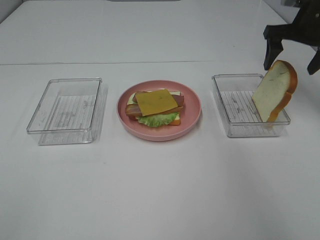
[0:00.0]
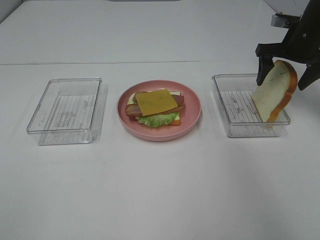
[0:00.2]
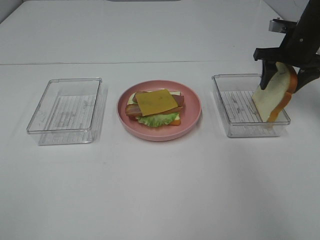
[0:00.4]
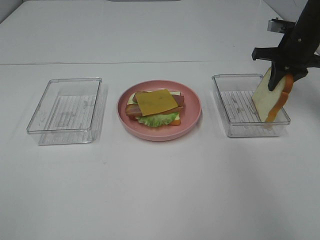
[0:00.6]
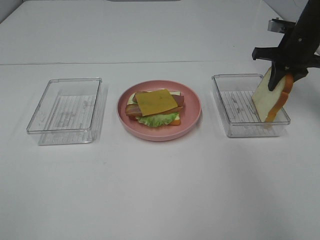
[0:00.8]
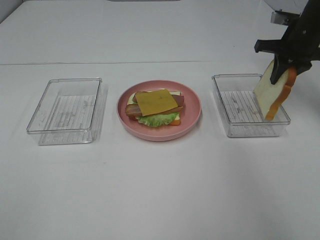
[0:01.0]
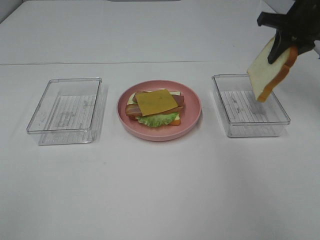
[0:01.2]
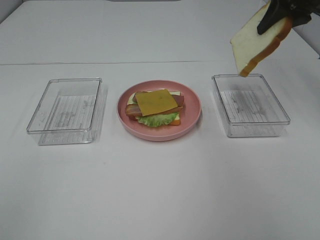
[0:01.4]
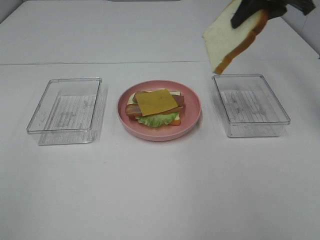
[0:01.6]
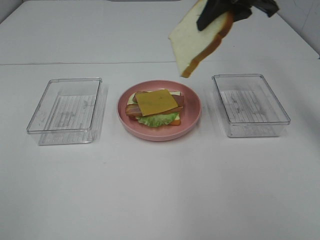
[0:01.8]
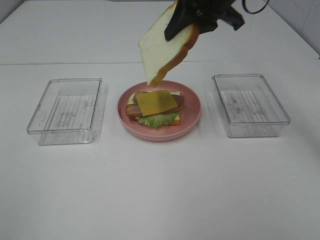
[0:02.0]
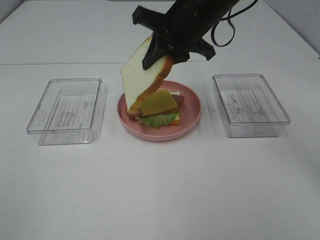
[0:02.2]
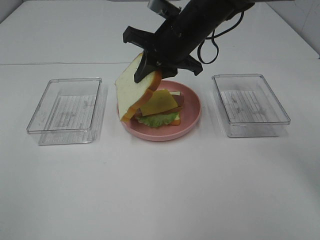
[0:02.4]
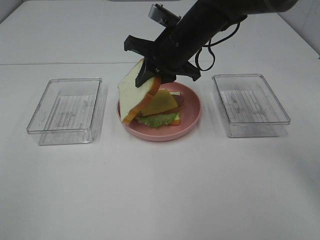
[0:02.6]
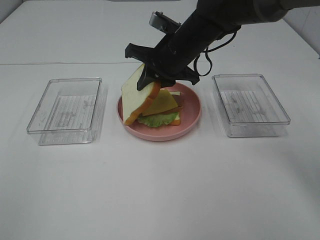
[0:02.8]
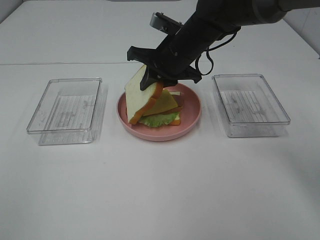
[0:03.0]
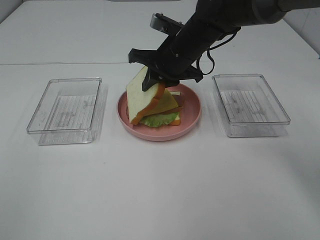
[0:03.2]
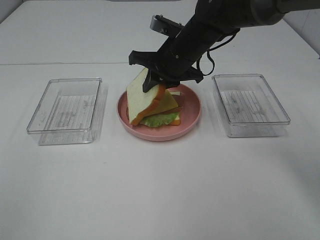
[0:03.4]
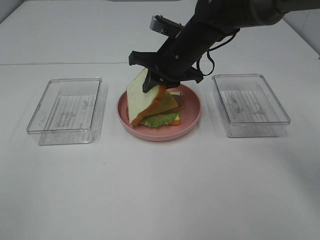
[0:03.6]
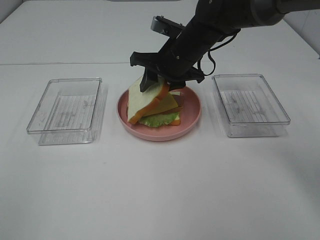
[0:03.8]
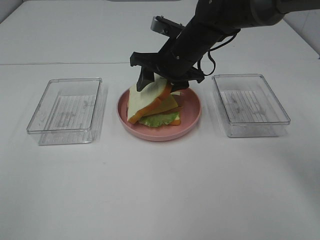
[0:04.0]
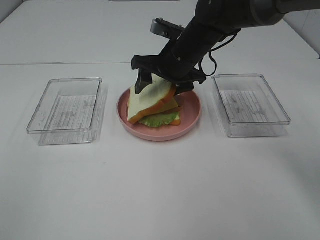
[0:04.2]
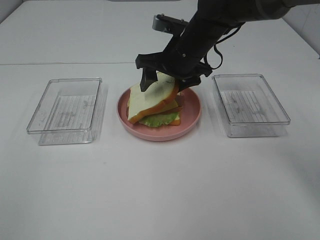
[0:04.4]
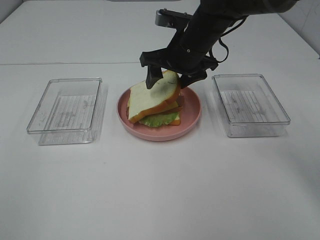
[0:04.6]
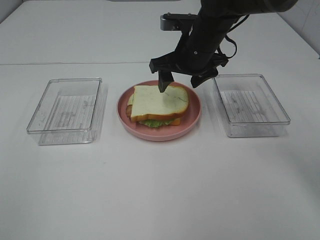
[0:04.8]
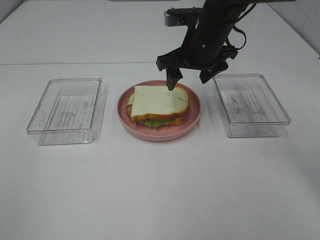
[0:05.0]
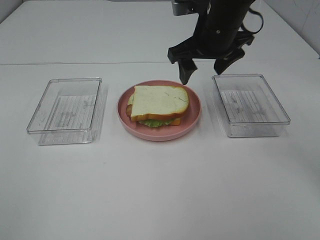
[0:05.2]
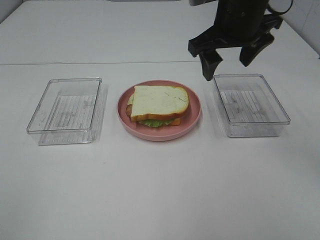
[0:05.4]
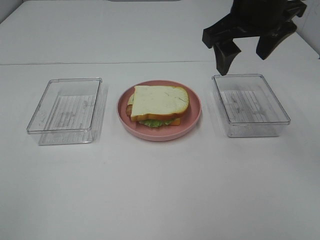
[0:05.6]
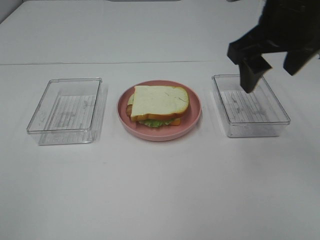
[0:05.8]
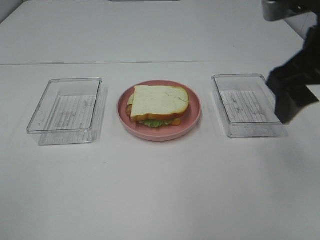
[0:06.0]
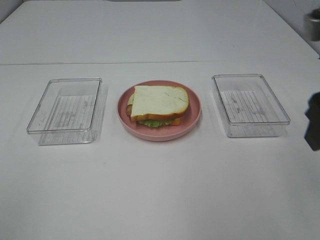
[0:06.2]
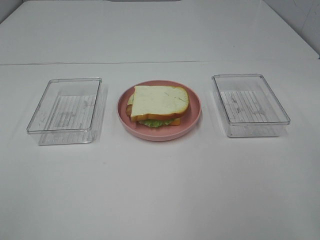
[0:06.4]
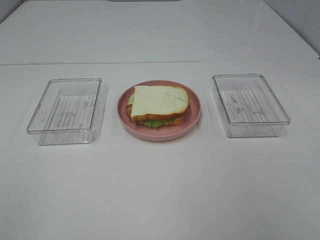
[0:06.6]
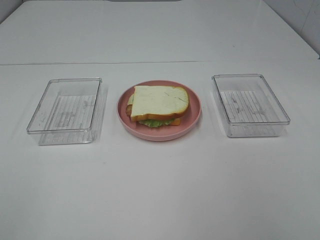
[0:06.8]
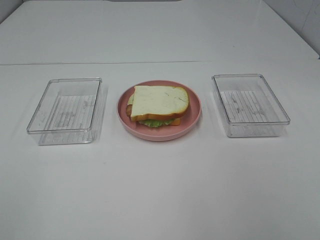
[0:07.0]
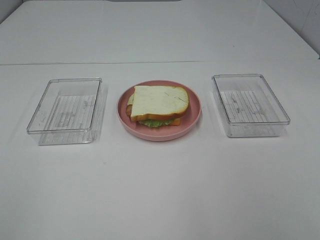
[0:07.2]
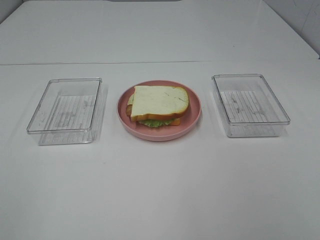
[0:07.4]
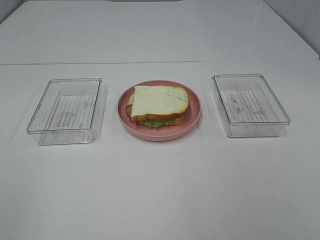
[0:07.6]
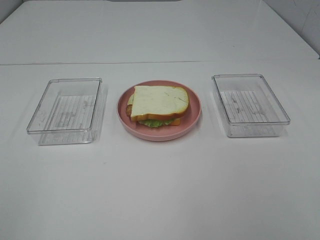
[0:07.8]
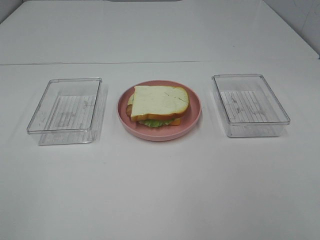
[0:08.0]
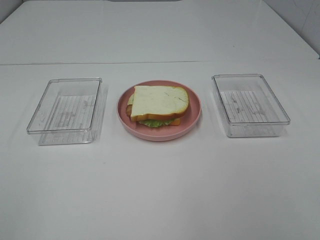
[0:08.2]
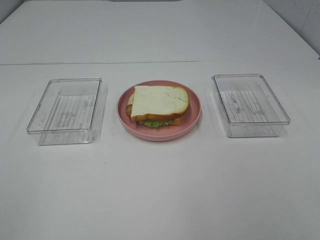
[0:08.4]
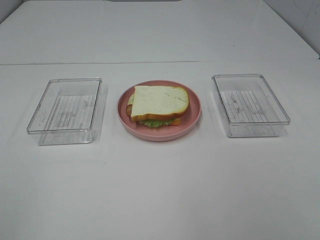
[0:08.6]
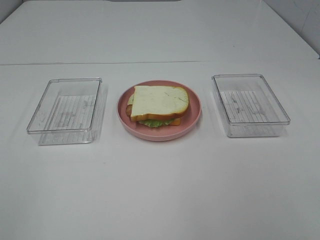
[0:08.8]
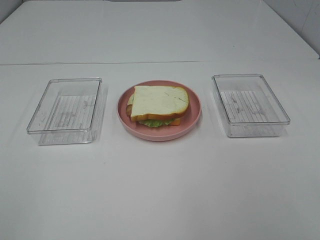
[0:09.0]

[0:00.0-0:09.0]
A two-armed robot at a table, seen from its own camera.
Task of the whole recording: Make sandwiches.
Step, 0:01.0 to 0:05.2: Right hand:place the bread slice on the cheese slice.
0:00.0 to 0:01.6: The right gripper shifts some 15 cm to the left and upward, and closes.
0:01.6 to 0:03.0: The right gripper is displaced downward and to the left by about 20 cm.
0:03.0 to 0:04.4: The right gripper opens its fingers.
0:04.4 to 0:06.0: The right gripper travels backward, to the right and upward by roughly 25 cm.
0:06.0 to 0:07.6: The right gripper shifts about 25 cm backward and to the right.

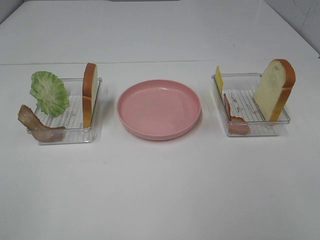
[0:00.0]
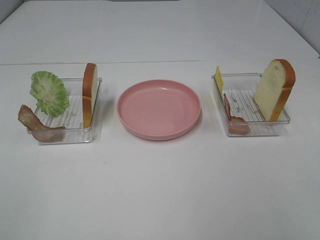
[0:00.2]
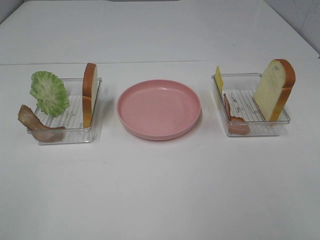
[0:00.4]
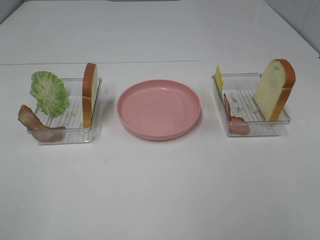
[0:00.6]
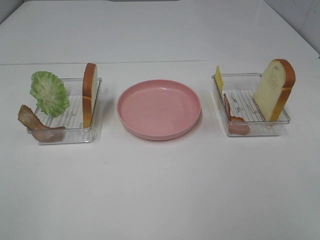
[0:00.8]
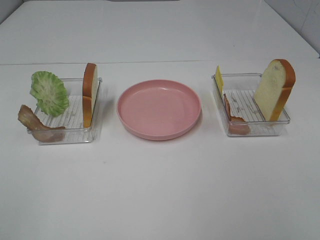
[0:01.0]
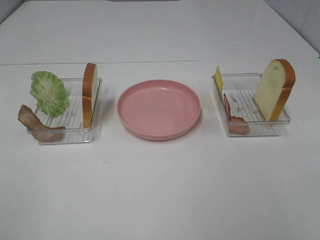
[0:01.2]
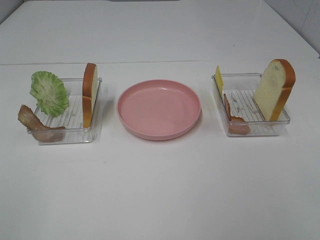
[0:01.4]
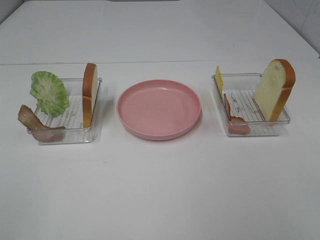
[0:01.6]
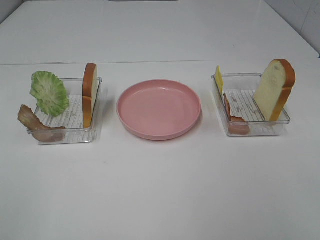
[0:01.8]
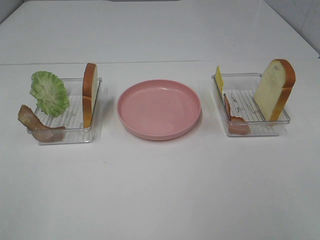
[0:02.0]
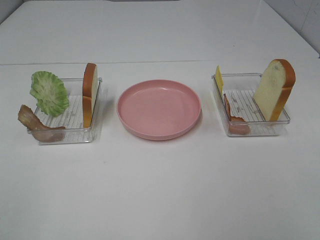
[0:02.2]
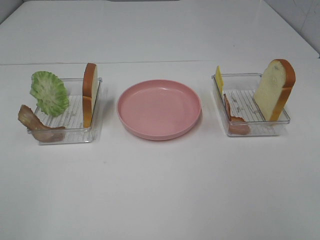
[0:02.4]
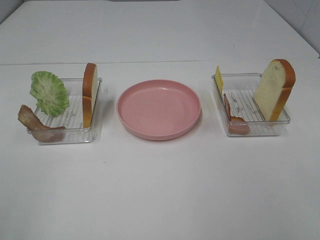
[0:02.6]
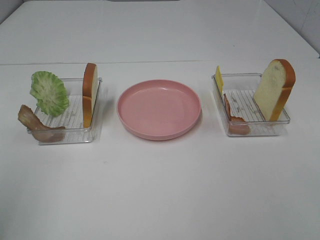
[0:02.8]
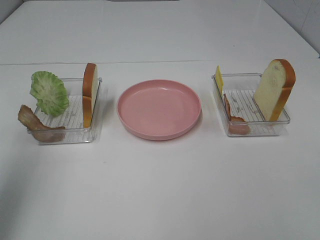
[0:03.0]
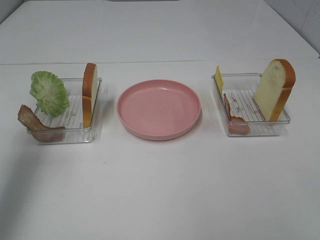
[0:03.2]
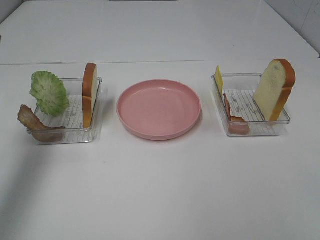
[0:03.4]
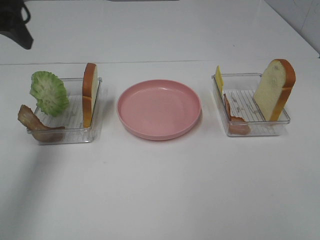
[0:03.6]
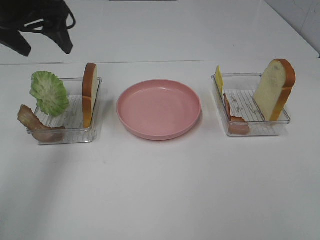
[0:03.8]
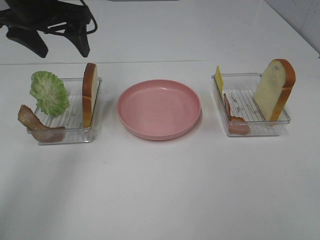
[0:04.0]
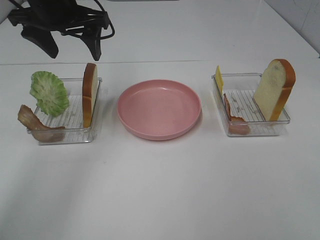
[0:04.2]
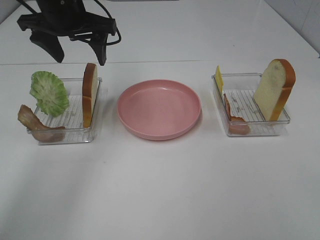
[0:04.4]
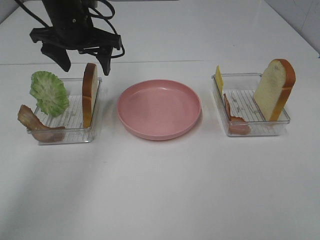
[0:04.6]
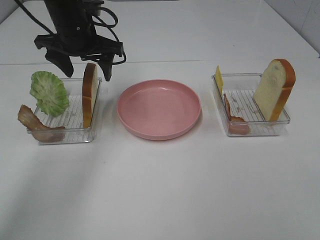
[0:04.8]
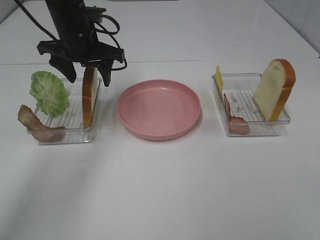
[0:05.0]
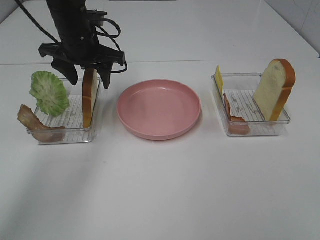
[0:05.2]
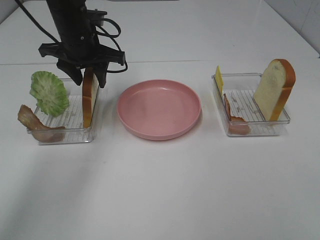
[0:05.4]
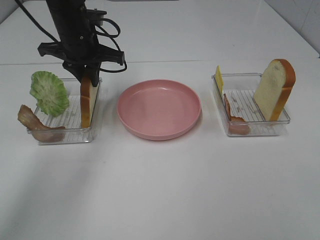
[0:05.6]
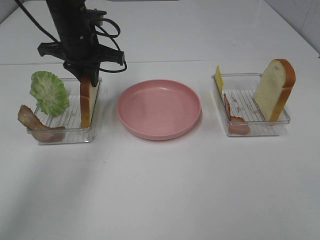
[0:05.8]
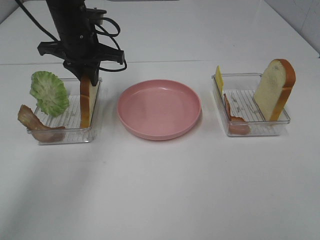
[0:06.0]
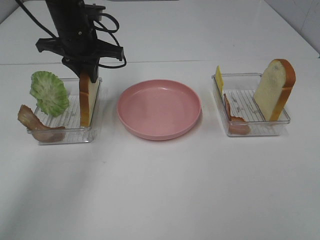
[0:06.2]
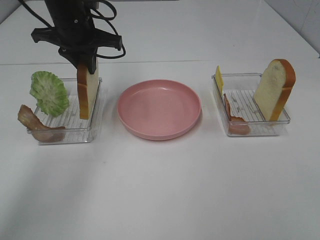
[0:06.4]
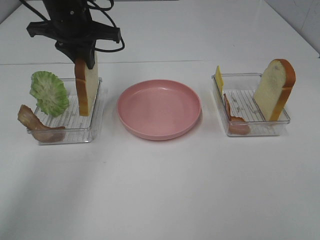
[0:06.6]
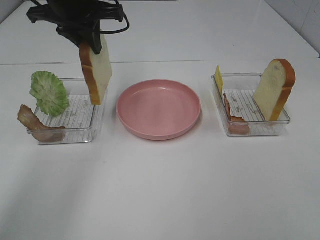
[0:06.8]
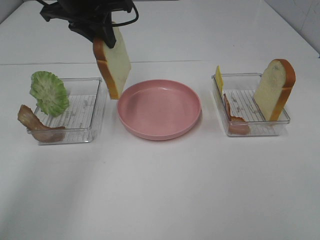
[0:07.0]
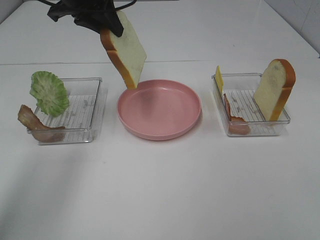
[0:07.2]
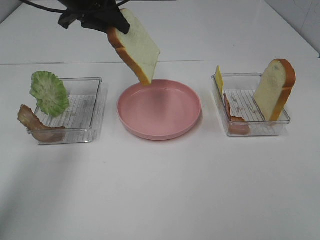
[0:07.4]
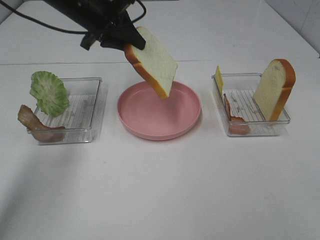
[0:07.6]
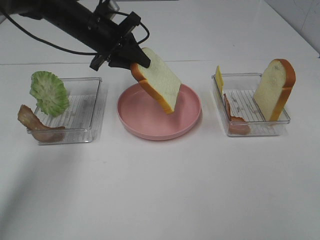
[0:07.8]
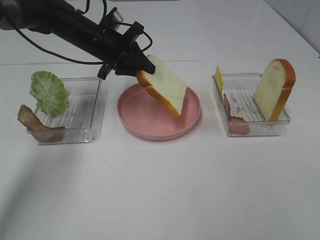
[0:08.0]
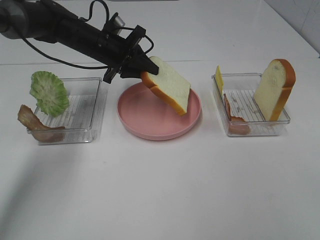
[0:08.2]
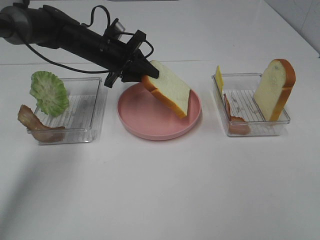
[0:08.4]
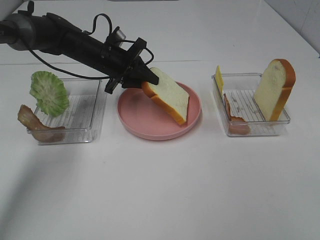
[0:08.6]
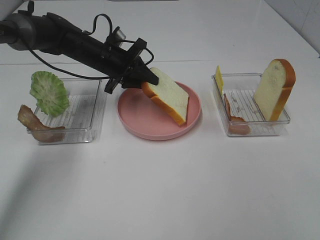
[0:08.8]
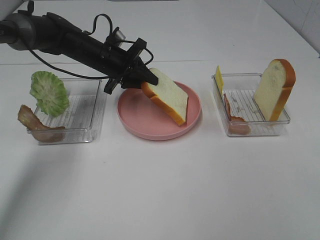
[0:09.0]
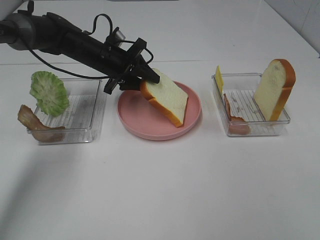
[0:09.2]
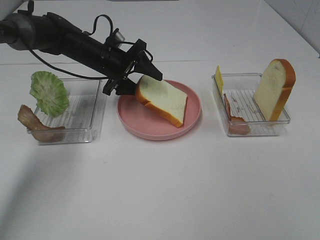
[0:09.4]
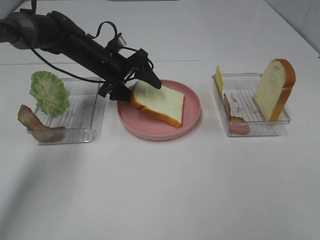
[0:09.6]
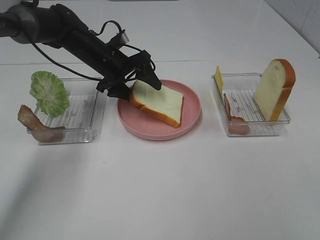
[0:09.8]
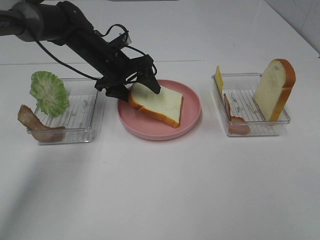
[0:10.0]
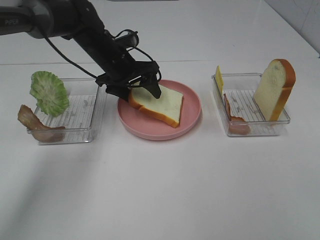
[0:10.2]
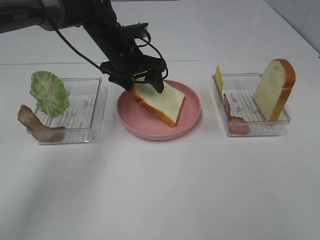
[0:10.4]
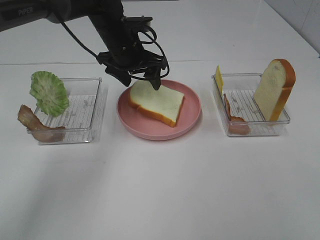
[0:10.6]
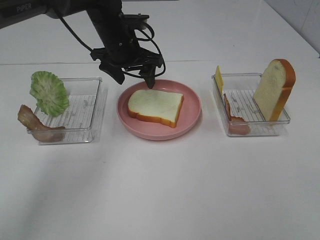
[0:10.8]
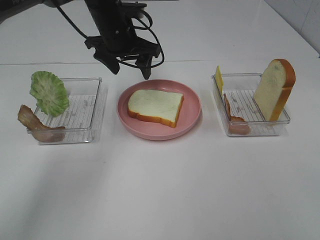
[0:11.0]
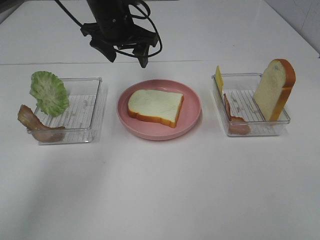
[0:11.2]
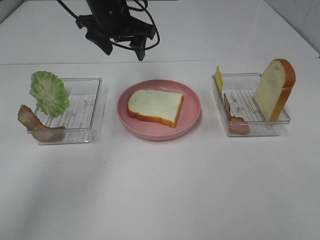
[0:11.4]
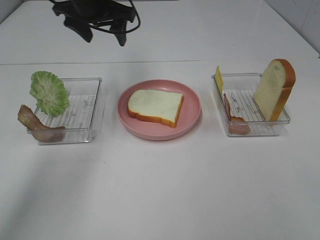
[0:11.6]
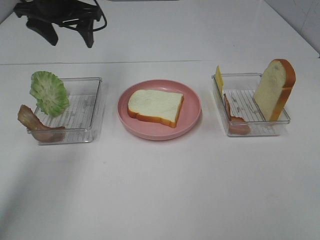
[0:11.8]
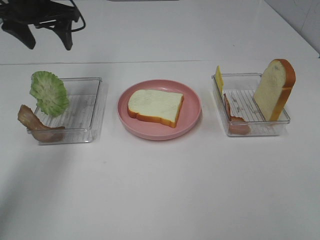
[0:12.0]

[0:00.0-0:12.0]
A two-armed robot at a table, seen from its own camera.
Task of the whole recording: Make sandwiches.
Step, 0:00.0 to 0:06.0: Left hand:grab the bread slice.
Step, 0:06.2 to 0:10.8: Left hand:place the bread slice on the plate.
0:00.0 to 0:01.6: The two grippers keep their place.
0:01.6 to 0:03.0: The left gripper is displaced forward by some 20 cm.
0:03.0 to 0:04.4: The left gripper moves forward and to the right, about 30 cm.
0:04.4 to 0:06.0: The left gripper moves downward, some 5 cm, and closes.
0:07.6 to 0:09.0: The left gripper travels downward by approximately 10 cm.
0:09.0 to 0:10.4: The left gripper shifts by about 5 cm, and opens.
0:10.4 to 0:12.0: The left gripper moves to the left and upward, about 20 cm.

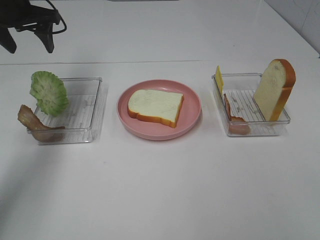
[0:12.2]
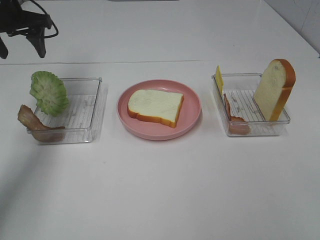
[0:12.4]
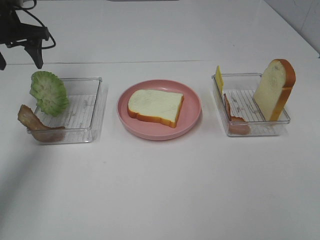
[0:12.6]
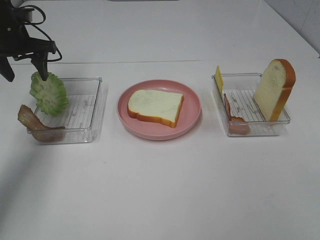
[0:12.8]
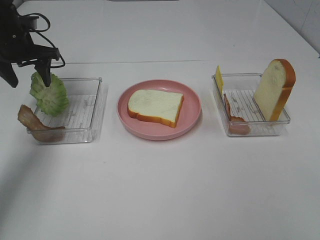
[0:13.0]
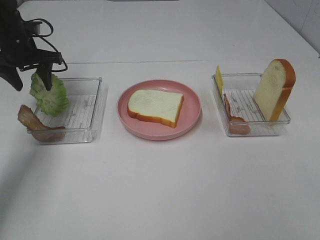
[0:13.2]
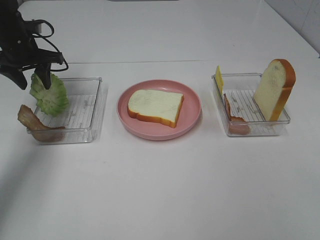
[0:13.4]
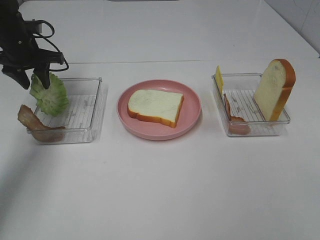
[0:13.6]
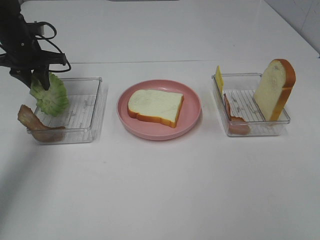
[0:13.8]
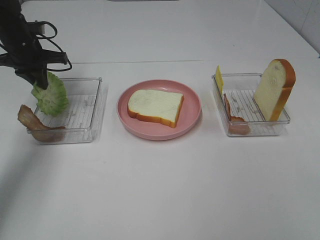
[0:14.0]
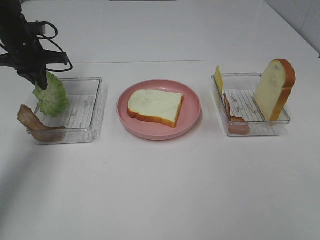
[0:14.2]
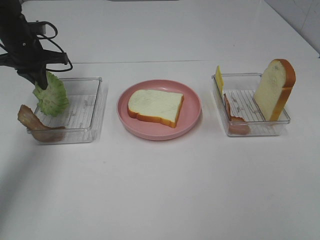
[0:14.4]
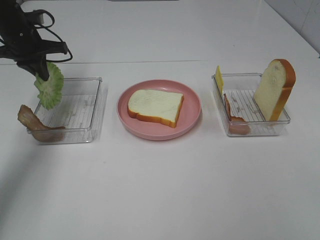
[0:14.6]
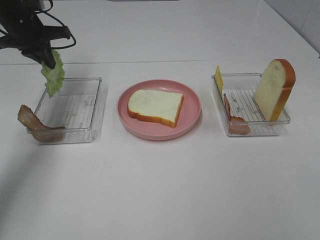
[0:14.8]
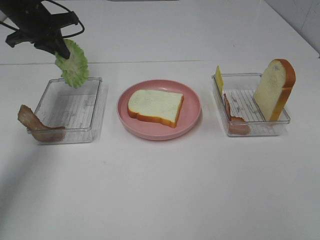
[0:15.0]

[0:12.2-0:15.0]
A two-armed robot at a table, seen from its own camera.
Task of the whole recording: Make sandwiches.
Step, 0:12.2 to 0:14.2: Left hand:grab the lettuce slice.
0:12.2 to 0:13.6: The left gripper shifts roughly 10 cm downward, and closes.
0:13.6 to 0:15.0: The left gripper shifts roughly 5 cm upward, and closes its fingers.
